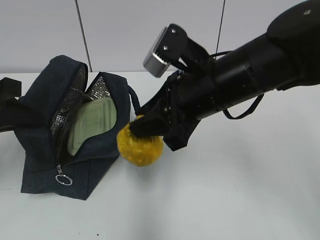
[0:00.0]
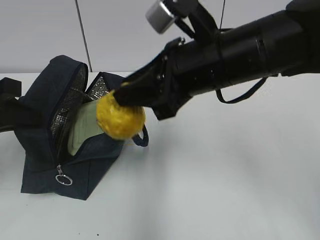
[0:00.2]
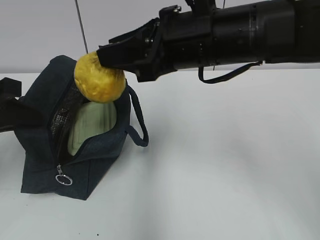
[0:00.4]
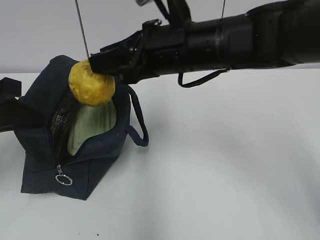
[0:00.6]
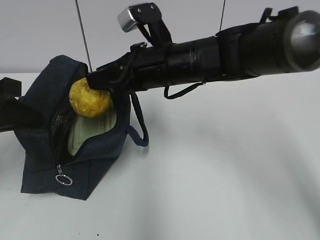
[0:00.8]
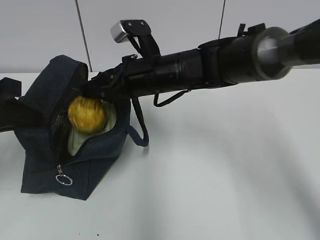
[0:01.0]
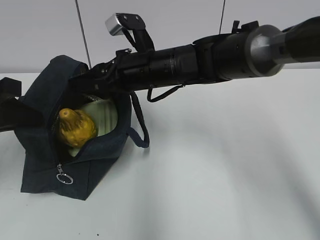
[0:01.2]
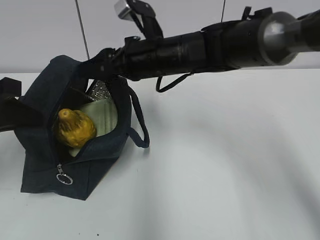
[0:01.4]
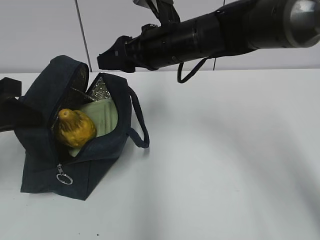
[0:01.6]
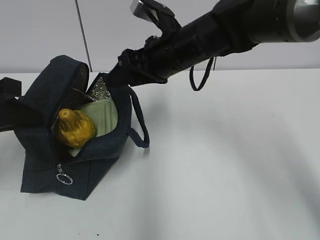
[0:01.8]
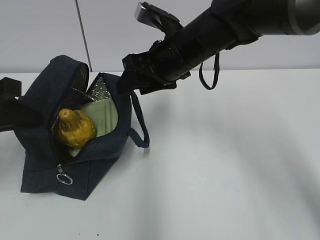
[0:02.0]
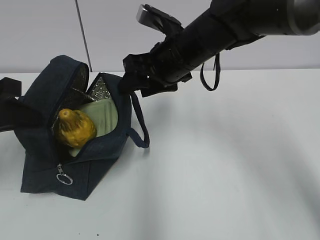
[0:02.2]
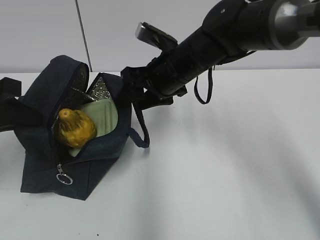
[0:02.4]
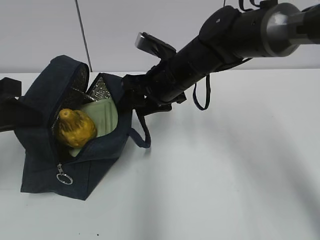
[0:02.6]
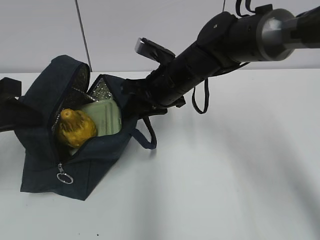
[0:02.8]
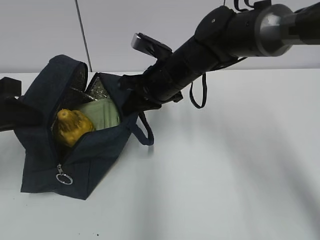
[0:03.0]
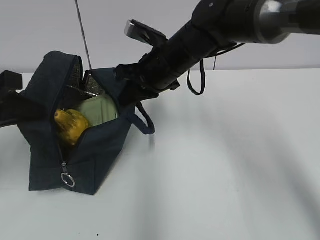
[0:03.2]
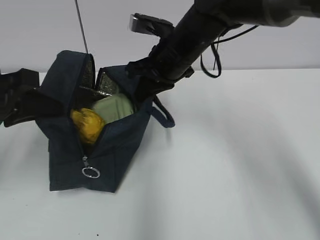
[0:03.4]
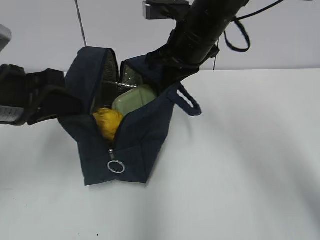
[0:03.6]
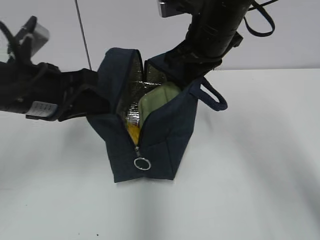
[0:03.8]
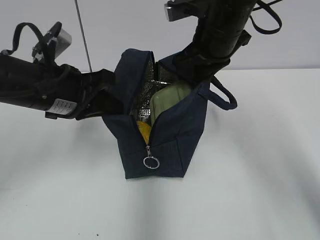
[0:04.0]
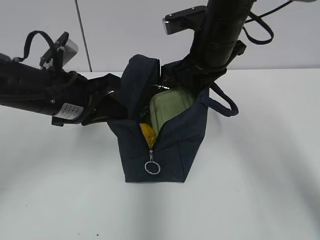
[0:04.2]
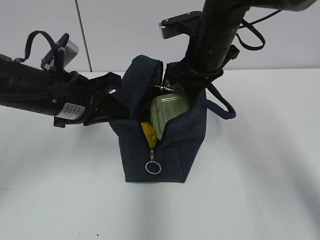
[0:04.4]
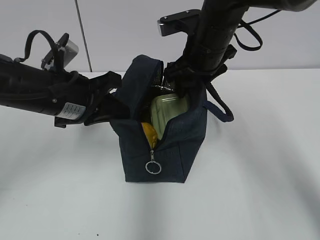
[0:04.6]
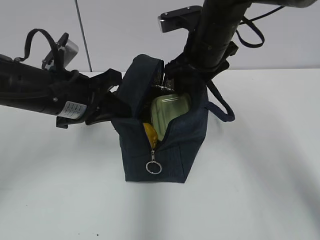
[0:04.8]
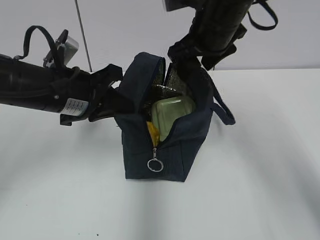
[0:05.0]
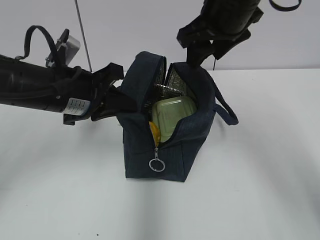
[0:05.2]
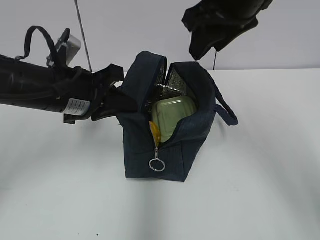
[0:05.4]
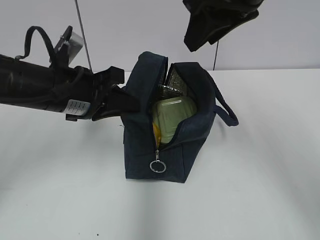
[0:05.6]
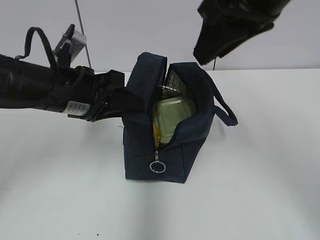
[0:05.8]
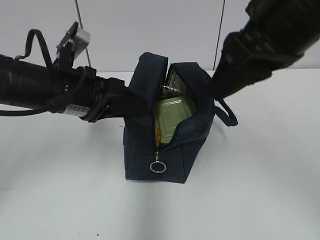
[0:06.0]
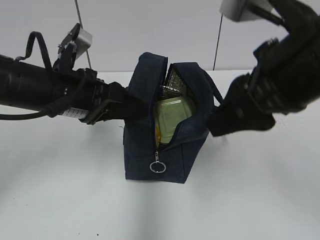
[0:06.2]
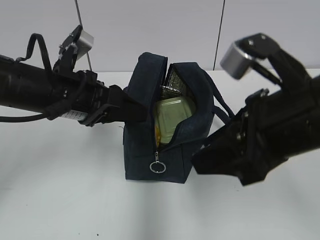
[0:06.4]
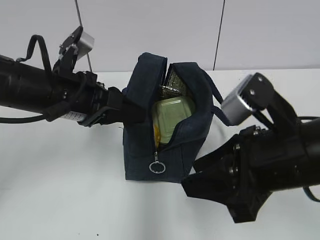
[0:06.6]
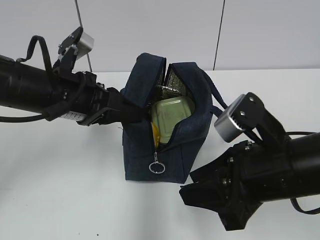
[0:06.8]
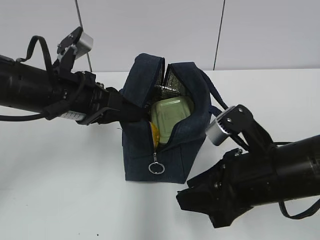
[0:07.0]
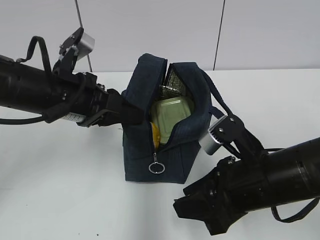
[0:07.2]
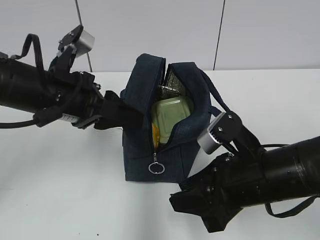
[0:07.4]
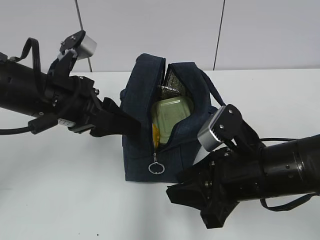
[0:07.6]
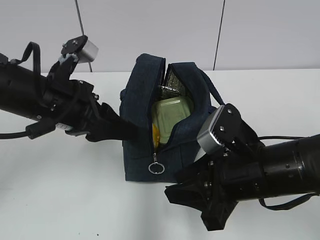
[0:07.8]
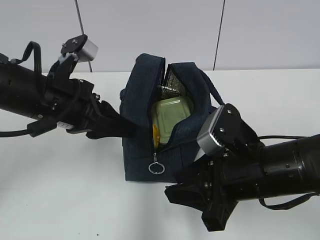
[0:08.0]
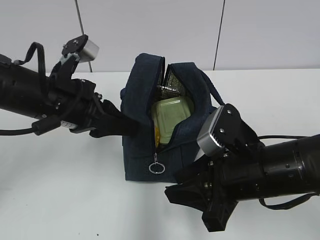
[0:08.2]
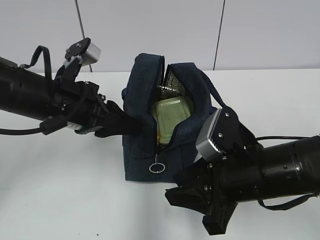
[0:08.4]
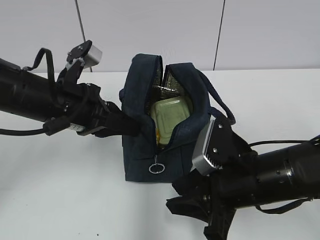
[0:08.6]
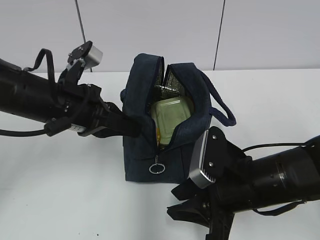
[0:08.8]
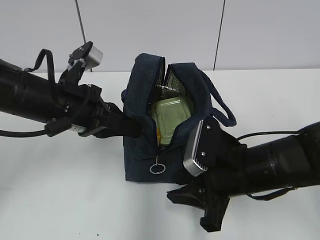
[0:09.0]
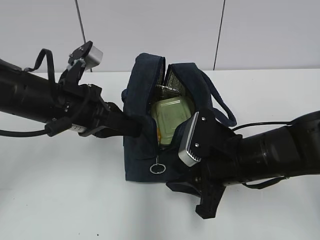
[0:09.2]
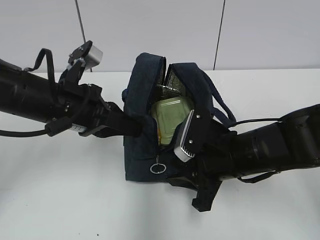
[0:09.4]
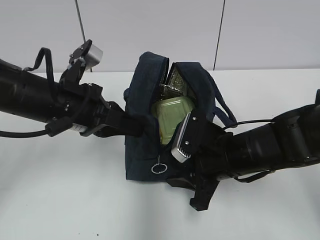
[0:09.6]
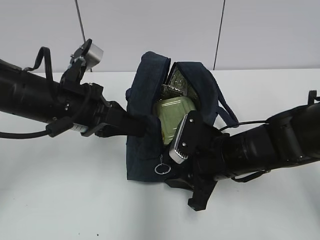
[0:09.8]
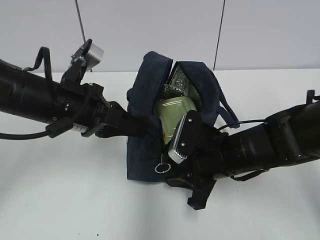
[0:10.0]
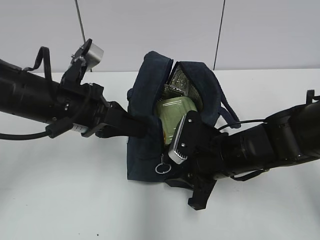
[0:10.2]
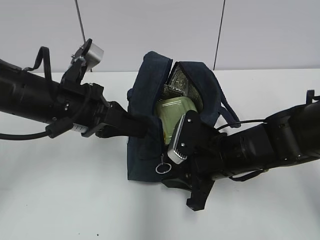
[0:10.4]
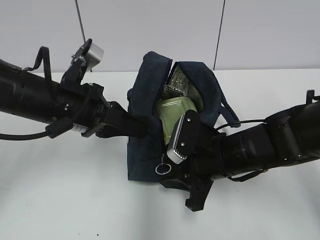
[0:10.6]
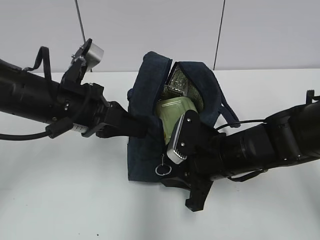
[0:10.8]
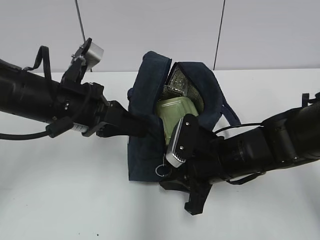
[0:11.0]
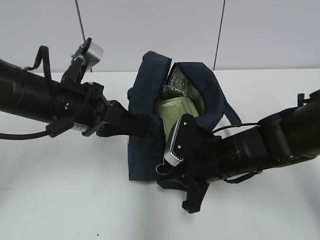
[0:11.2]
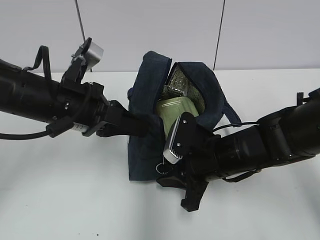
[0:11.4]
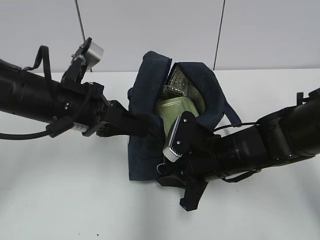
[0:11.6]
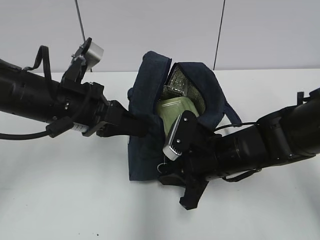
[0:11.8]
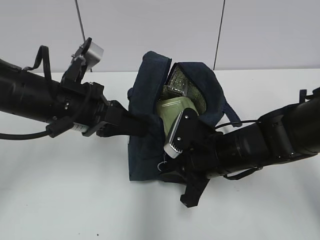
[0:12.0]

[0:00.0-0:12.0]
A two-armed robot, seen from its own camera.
Step, 0.0 to 1.4 s: Place it into the bag with your right hand.
Step, 1.8 to 3.0 s: Grab the lunch bag with your right hand.
Step, 3.2 to 3.4 s: Move the lunch bag to the left.
Step, 3.6 to 4.6 s: Move the lunch bag to the right.
0.0 to 1.6 s: The right gripper moves forward, about 10 cm, and opens.
1.6 to 3.0 s: The right gripper closes its fingers.
3.0 to 4.4 s: The right gripper travels to the right by about 5 cm, and opens. The left gripper travels to the right and forward by roughly 10 cm.
4.4 to 6.0 s: The left gripper opens. Meanwhile the right gripper is displaced backward and upward by some 20 cm.
6.0 to 7.6 s: The right gripper moves downward, some 20 cm.
7.6 to 9.0 s: The left gripper closes.
9.0 to 10.4 s: The grippers move only a little.
10.4 to 12.0 s: The two grippers keep their place.

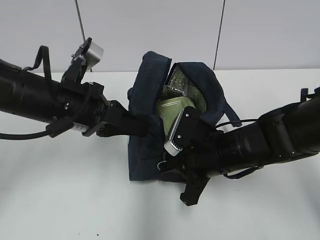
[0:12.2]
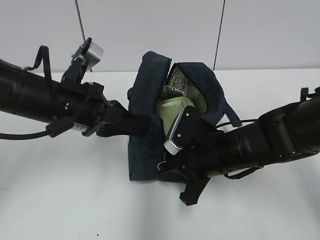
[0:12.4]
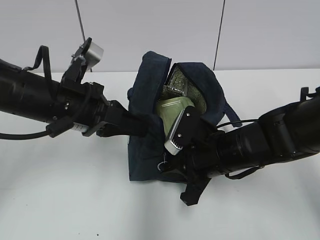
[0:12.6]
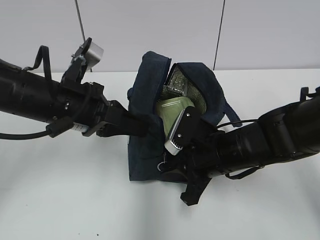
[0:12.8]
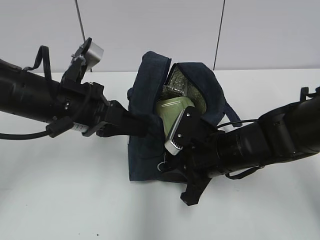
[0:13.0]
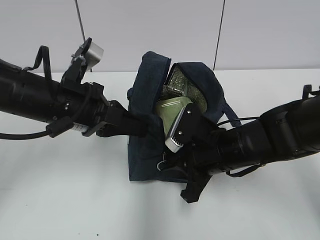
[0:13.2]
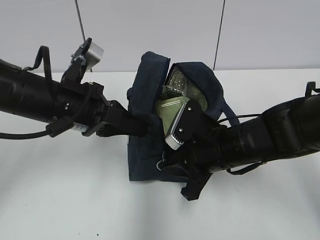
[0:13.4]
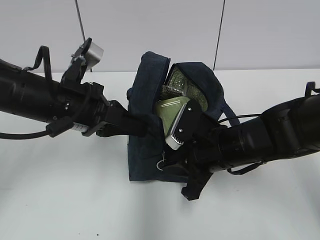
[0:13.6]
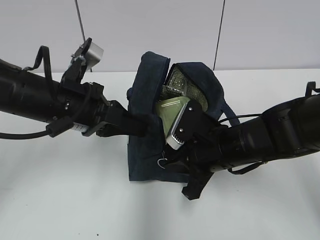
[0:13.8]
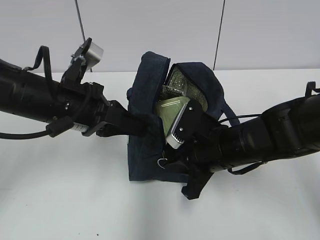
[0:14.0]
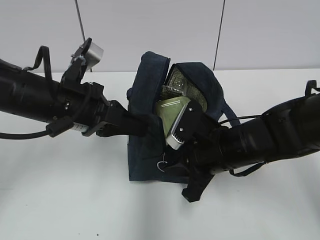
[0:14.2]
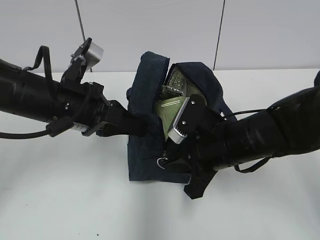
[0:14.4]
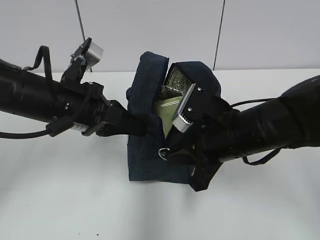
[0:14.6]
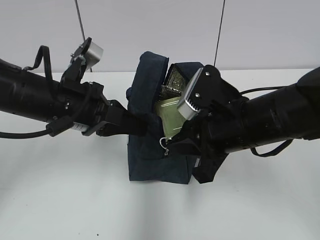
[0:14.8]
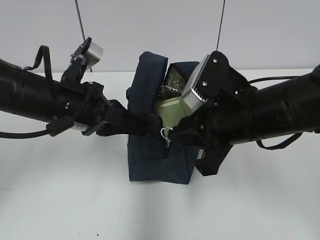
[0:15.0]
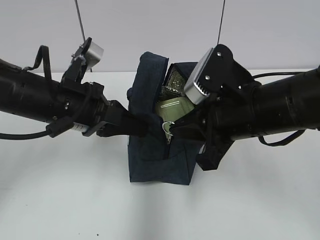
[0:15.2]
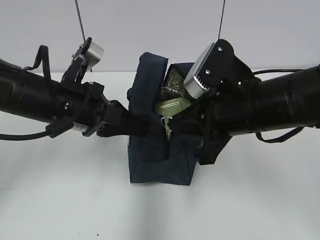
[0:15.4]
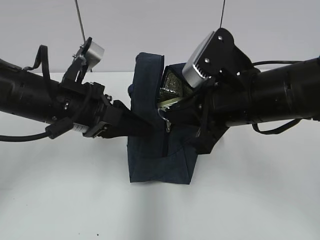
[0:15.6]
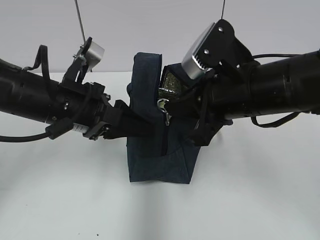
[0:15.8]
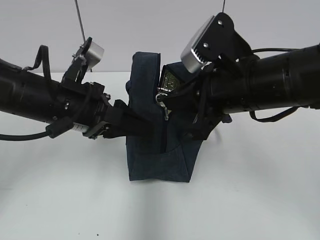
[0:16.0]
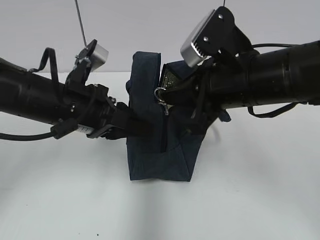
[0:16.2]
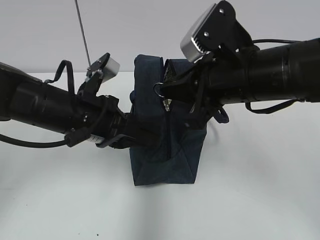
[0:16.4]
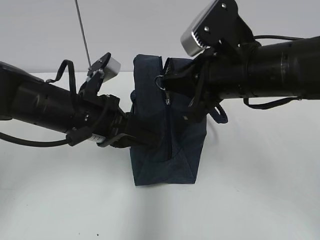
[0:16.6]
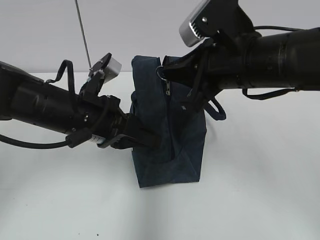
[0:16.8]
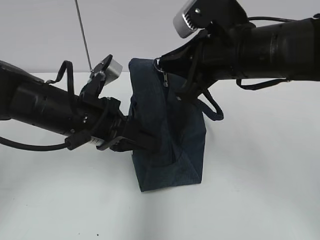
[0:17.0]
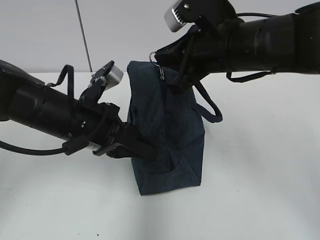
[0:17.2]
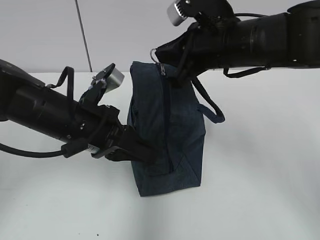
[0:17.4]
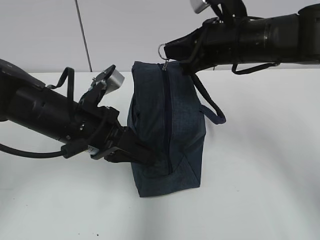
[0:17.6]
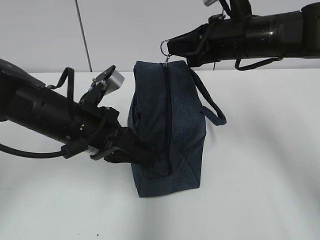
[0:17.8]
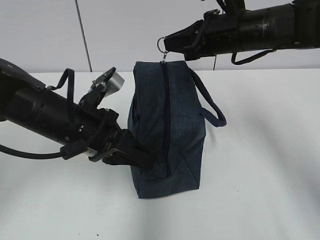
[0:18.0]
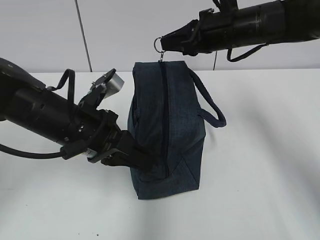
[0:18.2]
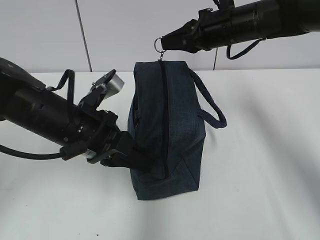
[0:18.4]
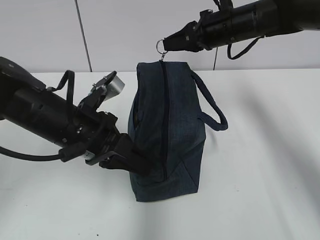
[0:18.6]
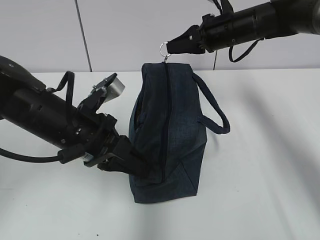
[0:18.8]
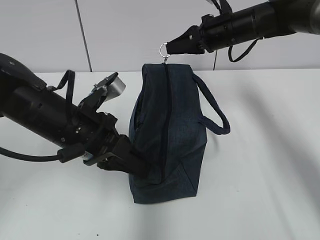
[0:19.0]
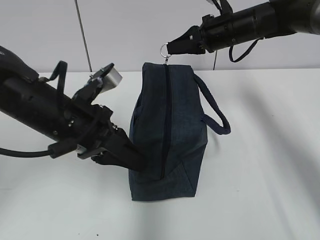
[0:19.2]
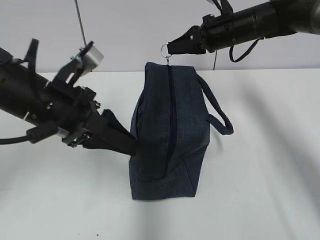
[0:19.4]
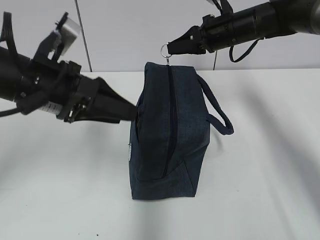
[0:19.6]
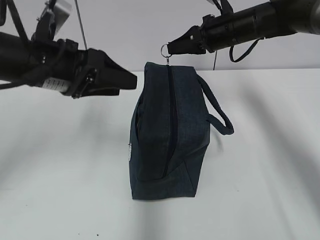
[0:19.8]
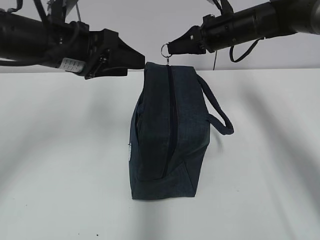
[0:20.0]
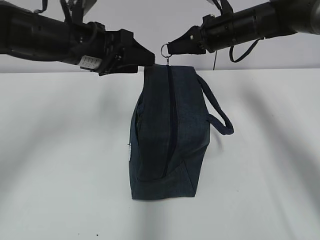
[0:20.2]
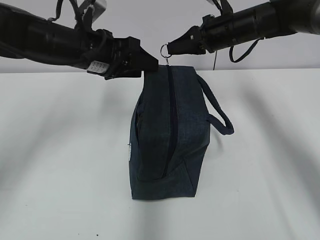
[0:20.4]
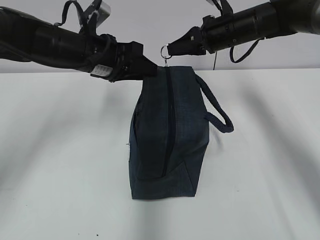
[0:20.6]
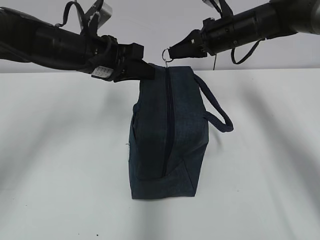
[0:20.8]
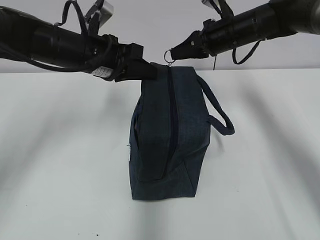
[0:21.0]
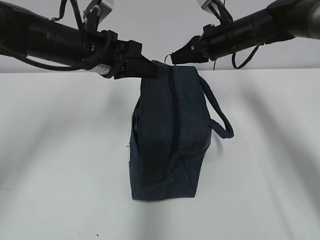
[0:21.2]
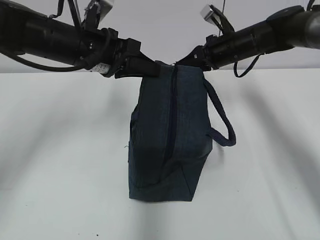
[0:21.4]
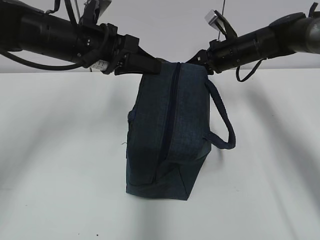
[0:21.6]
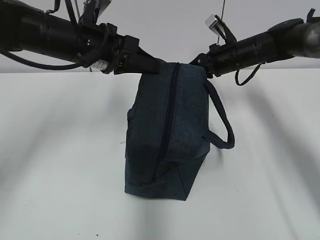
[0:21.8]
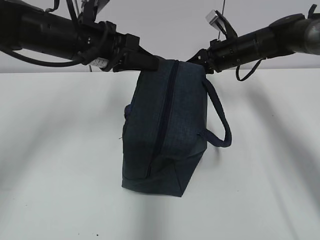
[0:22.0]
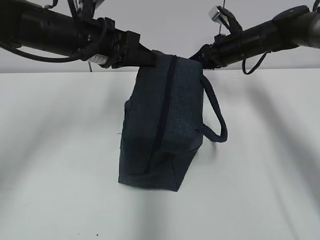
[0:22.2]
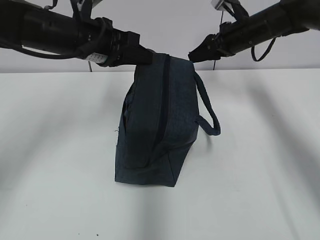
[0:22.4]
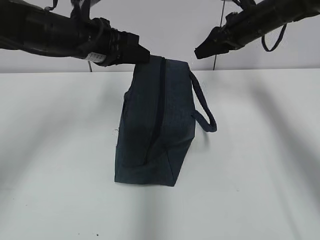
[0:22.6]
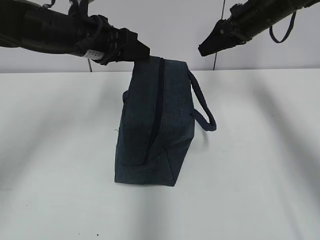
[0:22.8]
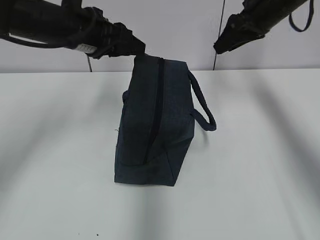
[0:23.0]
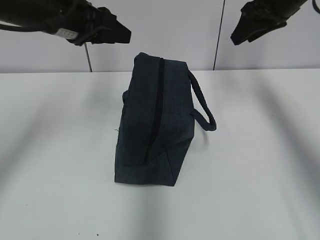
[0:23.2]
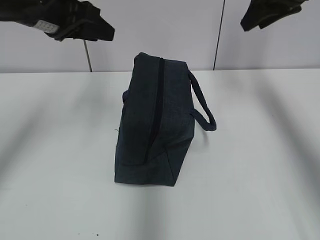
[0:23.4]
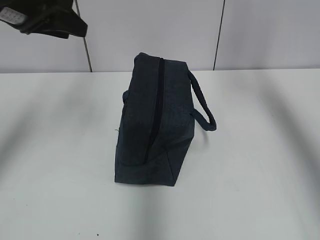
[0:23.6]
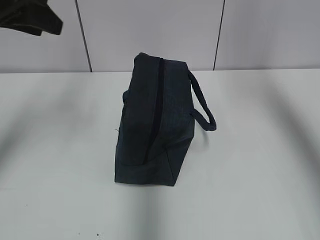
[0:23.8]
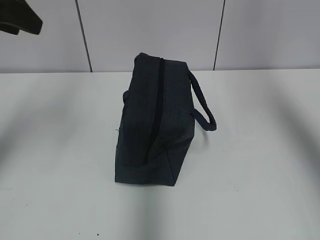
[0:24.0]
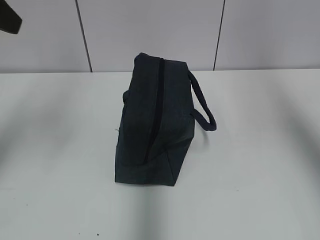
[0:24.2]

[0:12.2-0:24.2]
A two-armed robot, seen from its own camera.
Step, 12.2 to 22.2 s: Pull the zipper with your right hand.
Step, 22.4 to 22.8 s: Grab the lunch bag with your left hand.
12.2 to 13.8 s: Both grippers stay put.
13.8 to 15.2 s: The right gripper goes some 10 cm upward.
15.2 to 16.6 s: The left gripper opens, then closes again.
16.6 to 18.2 s: The right gripper heads forward, covering roughly 15 cm.
18.2 to 19.8 s: The right gripper moves forward, roughly 5 cm, while the left gripper heads upward, covering about 10 cm, and opens.
19.8 to 21.2 s: The left gripper shifts some 5 cm forward, and closes its fingers.
21.2 to 22.6 s: The right gripper changes place by roughly 5 cm, and opens up. Meanwhile the left gripper opens its fingers.
22.6 to 24.2 s: The left gripper travels upward, backward and to the left by about 20 cm; the right gripper moves upward and backward, roughly 40 cm.
